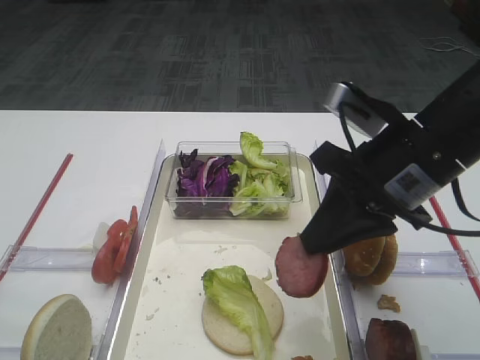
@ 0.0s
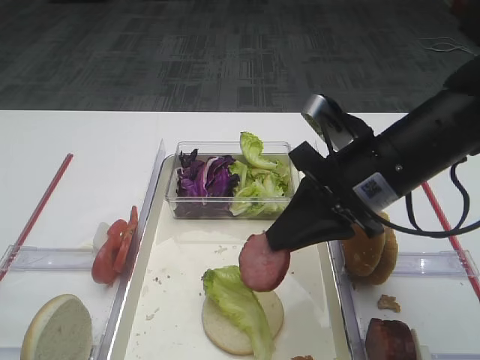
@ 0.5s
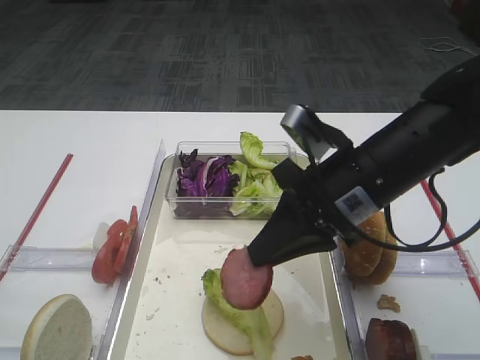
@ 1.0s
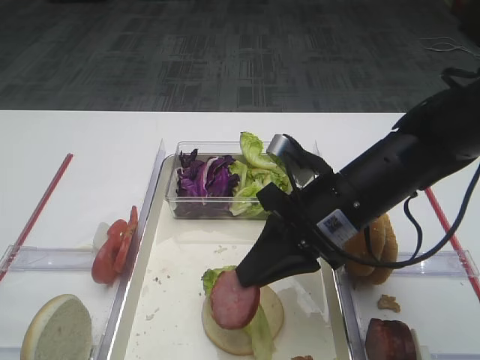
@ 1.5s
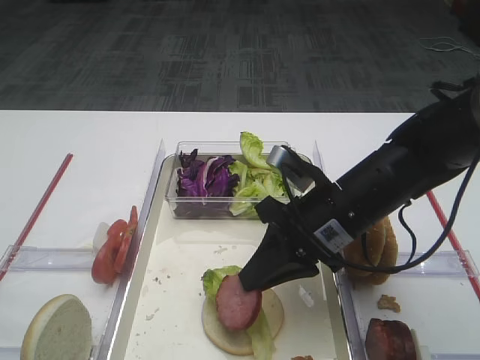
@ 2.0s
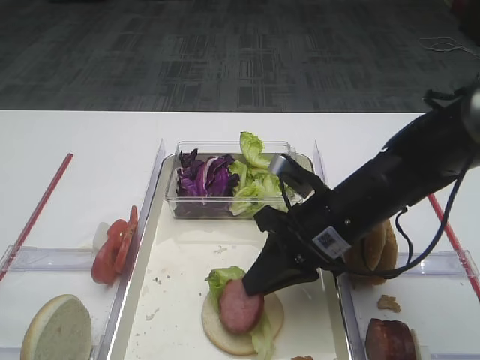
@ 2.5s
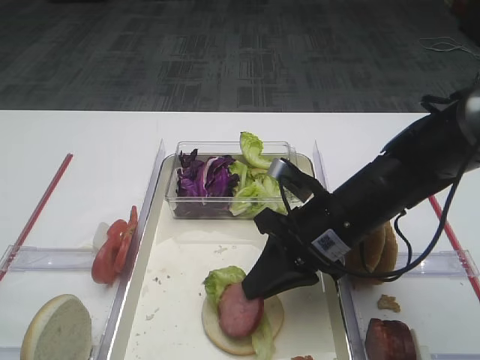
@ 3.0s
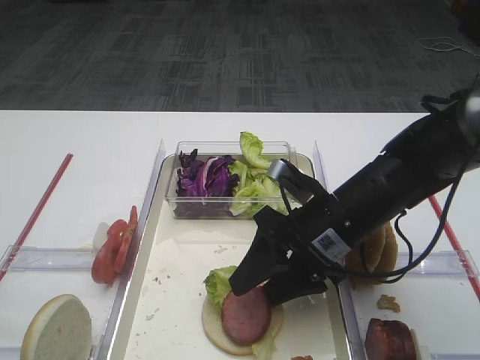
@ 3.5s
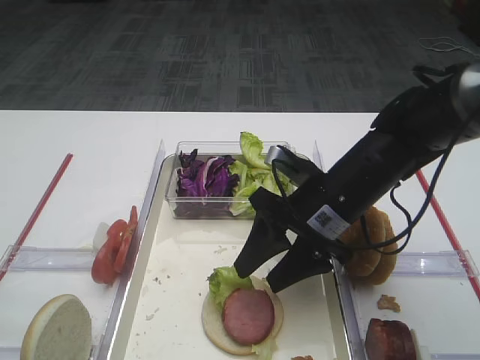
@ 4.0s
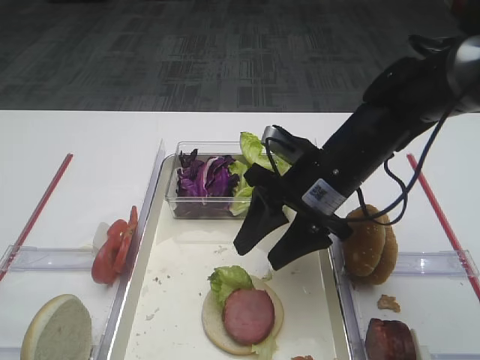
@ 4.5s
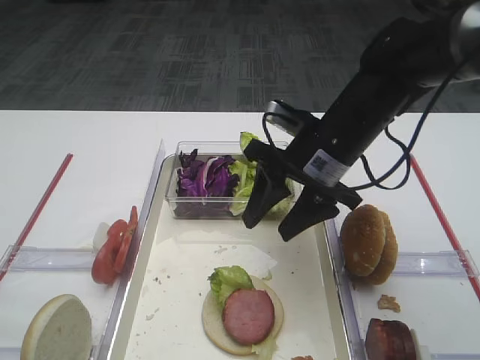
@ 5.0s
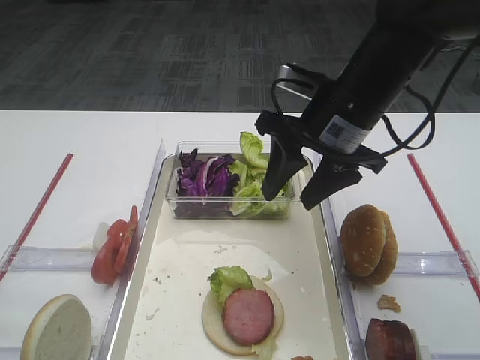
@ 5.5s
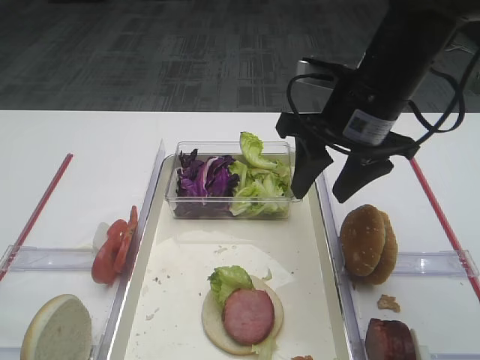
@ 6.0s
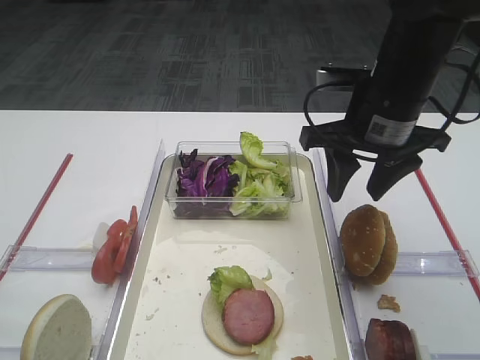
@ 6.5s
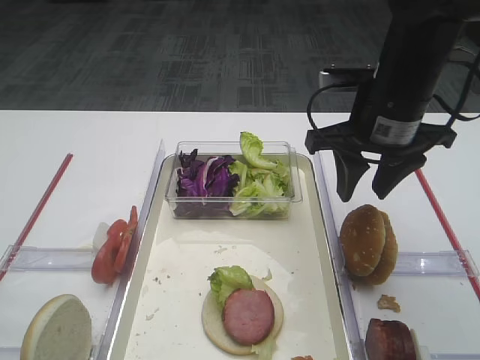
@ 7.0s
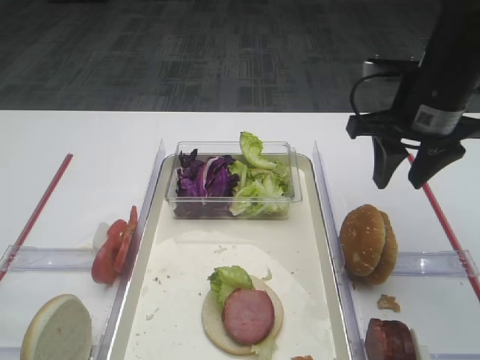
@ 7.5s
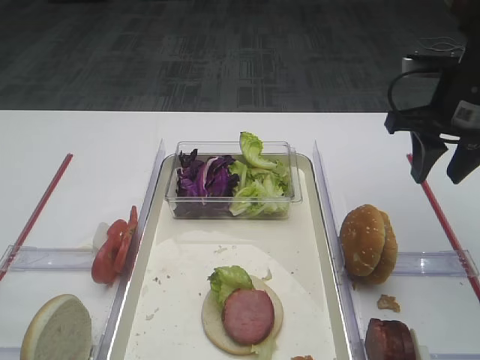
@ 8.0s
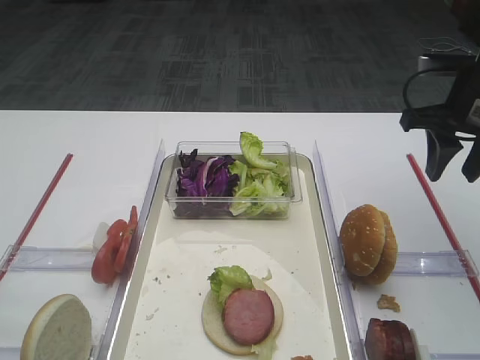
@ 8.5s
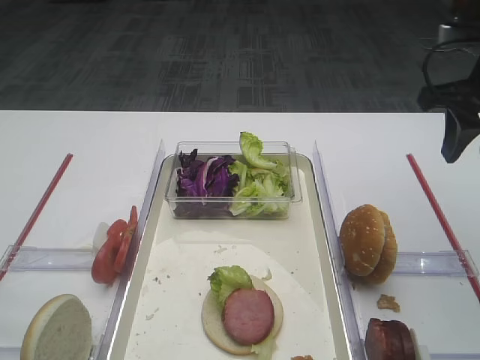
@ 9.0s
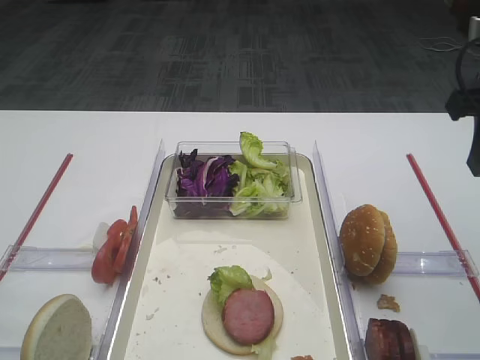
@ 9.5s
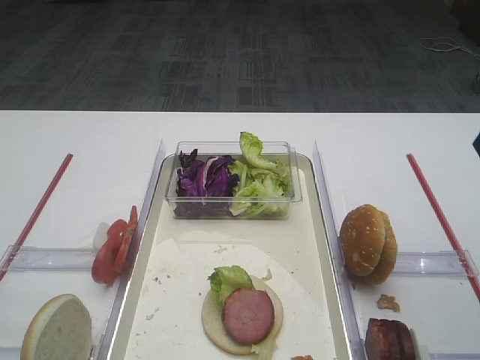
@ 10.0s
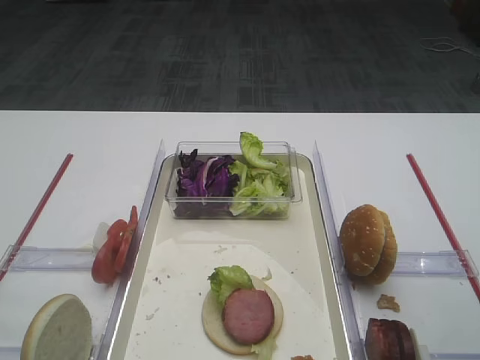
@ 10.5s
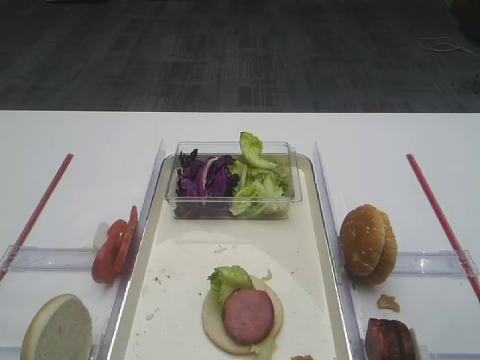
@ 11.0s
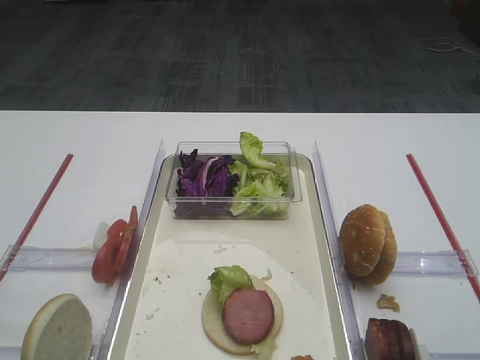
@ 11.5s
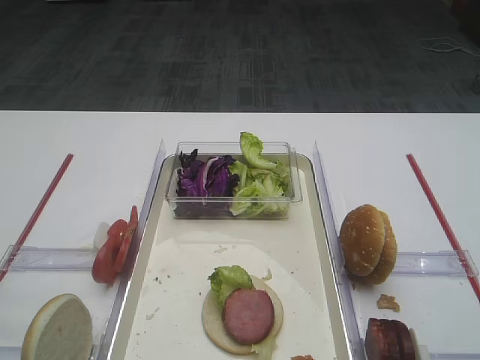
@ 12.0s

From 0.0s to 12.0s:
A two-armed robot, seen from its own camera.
Step, from 0.0s to 4.5s: Place the cutlet on the tomato slice with the right gripper.
From 0.0s to 2.0s: The right gripper heads downward, covering some 10 cm.
From 2.0s to 4.0s: The right gripper opens up.
From 4.0s to 6.0s: The right gripper shifts roughly 10 cm upward.
From 6.0s to 8.0s: The right gripper shifts approximately 10 cm to the right.
From 8.0s to 10.0s: The right gripper travels backward and upward by approximately 15 cm.

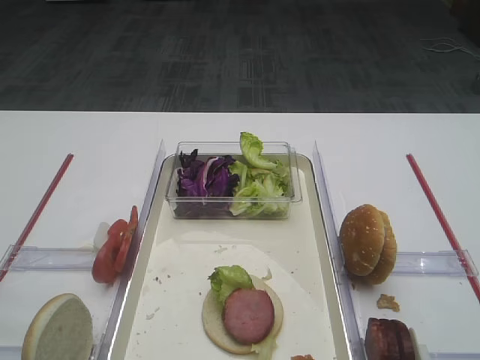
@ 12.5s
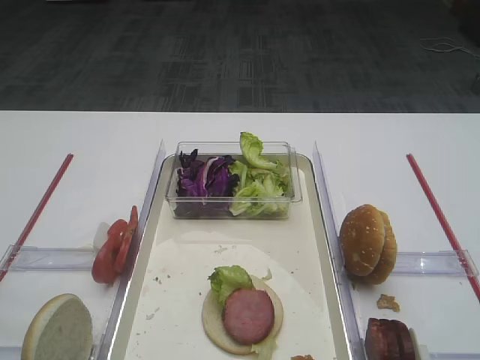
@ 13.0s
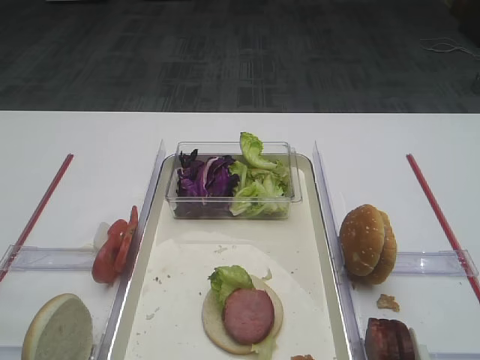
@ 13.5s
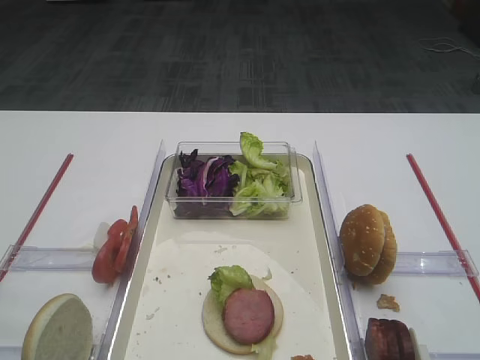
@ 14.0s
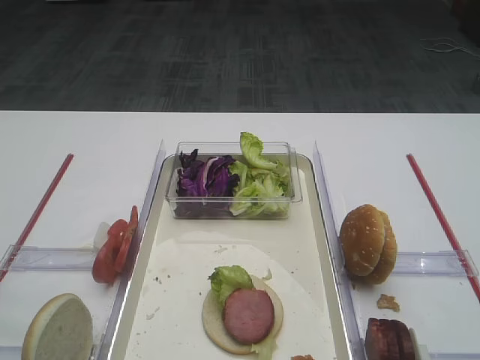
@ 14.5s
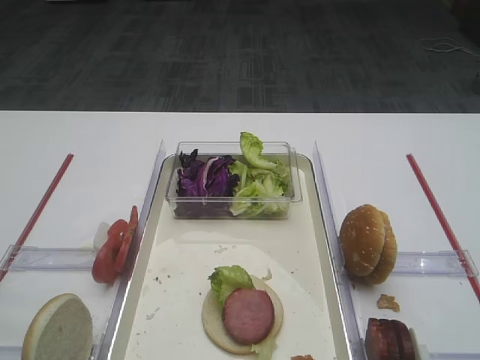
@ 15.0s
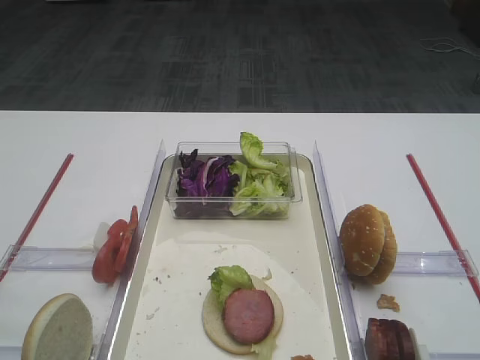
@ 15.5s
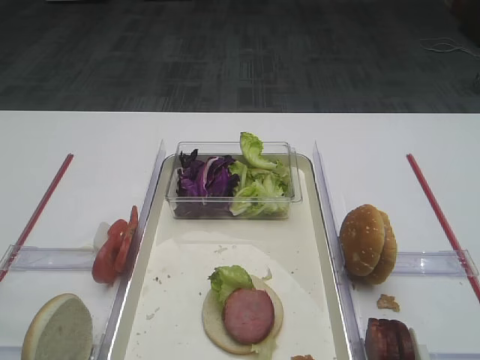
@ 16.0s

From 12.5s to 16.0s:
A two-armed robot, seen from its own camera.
From 14.5s to 16.0s: Neither gripper changes place.

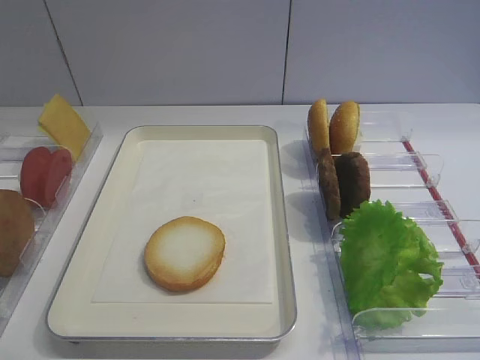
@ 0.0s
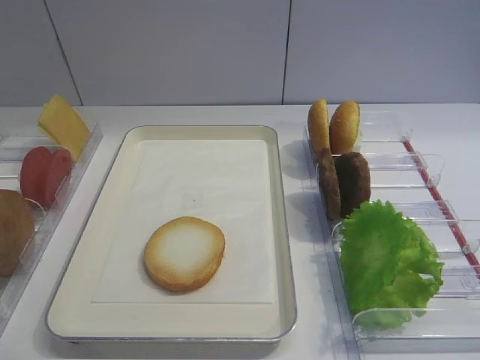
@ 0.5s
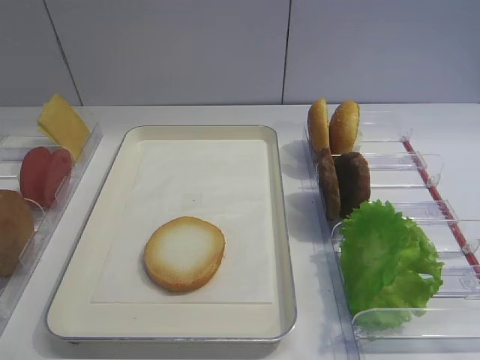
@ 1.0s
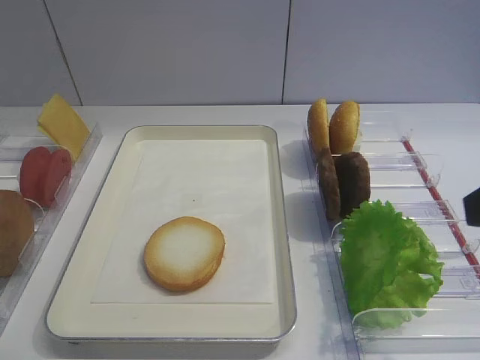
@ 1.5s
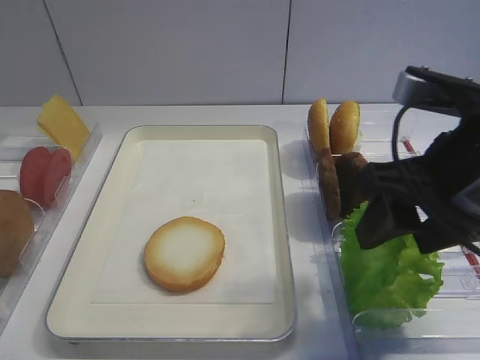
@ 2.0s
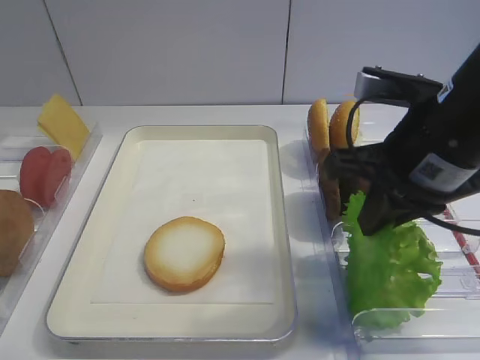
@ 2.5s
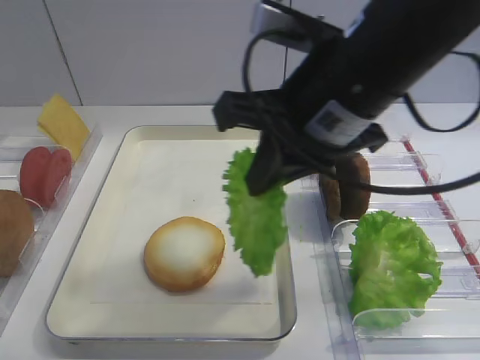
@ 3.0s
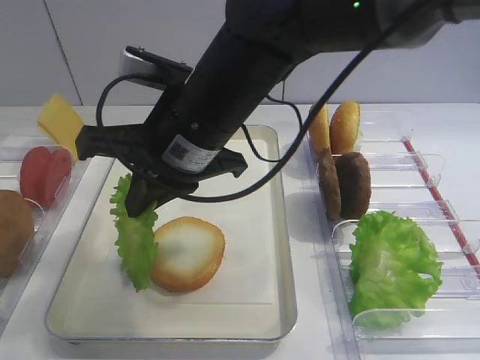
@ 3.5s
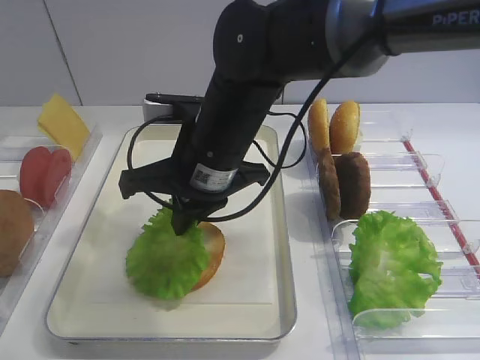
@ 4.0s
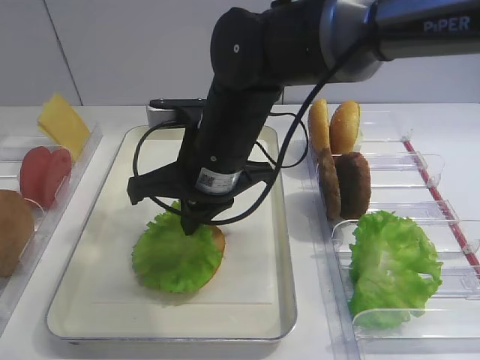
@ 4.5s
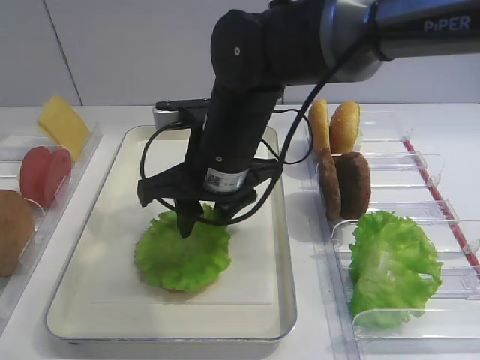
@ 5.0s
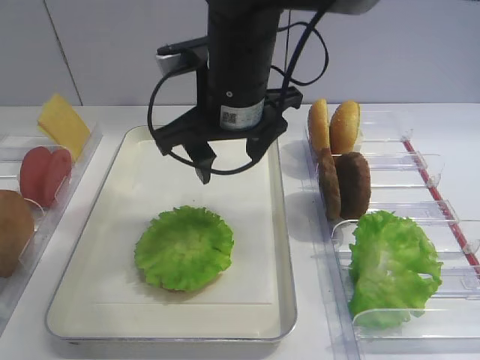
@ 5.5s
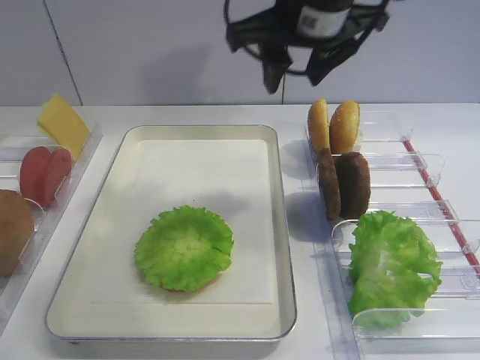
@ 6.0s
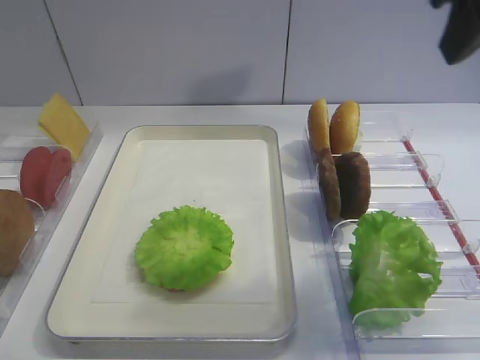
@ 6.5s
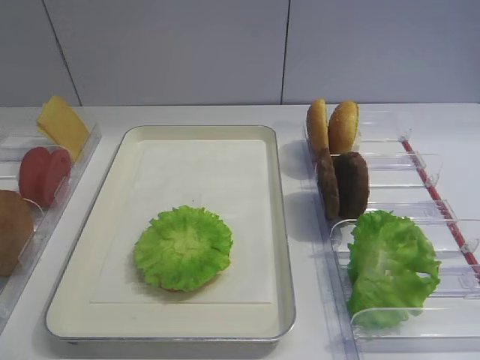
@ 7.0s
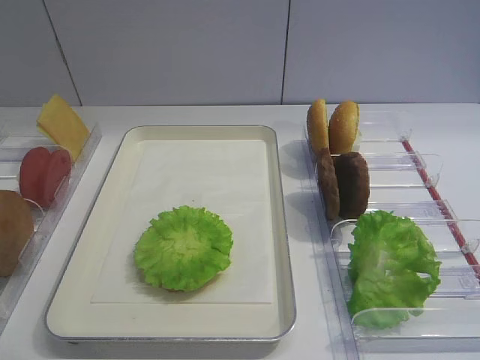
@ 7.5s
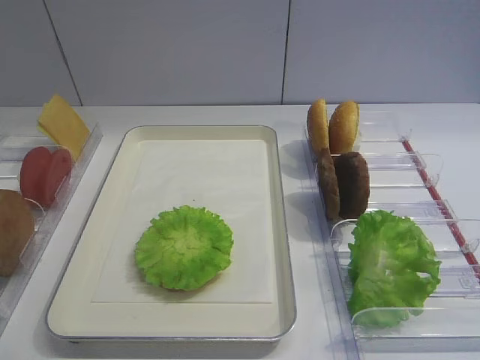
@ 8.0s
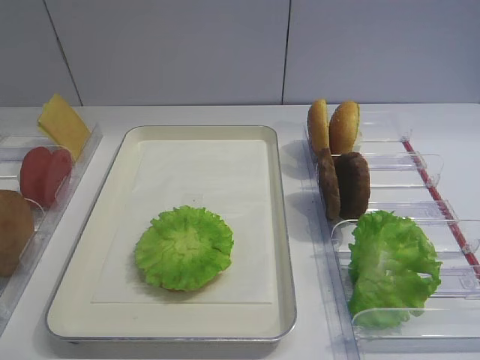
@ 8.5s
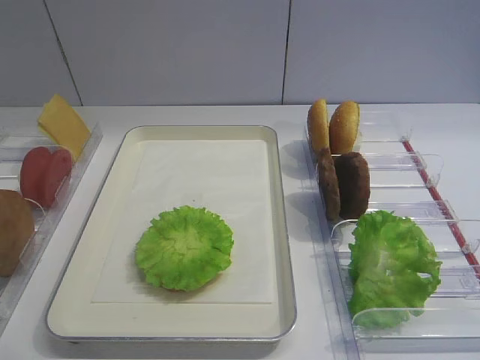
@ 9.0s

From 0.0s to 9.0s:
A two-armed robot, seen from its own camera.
Step, from 0.0s to 2.5s: Pick up the lettuce leaf with the right gripper.
Step, from 3.0s to 5.0s: Place the lettuce leaf on the bread slice with the right gripper.
From 2.0s to 4.5s: The right gripper travels to the left and forward by some 20 cm, and closes.
From 4.5s to 7.0s: The right gripper heads to the right, backward and upward, covering some 40 cm, and opens.

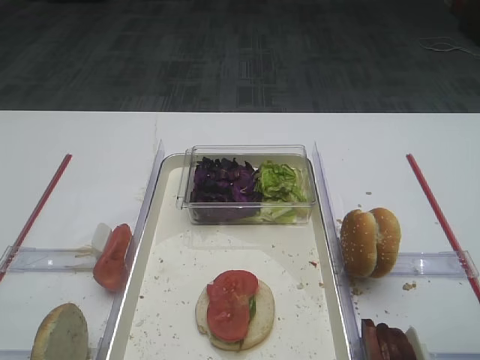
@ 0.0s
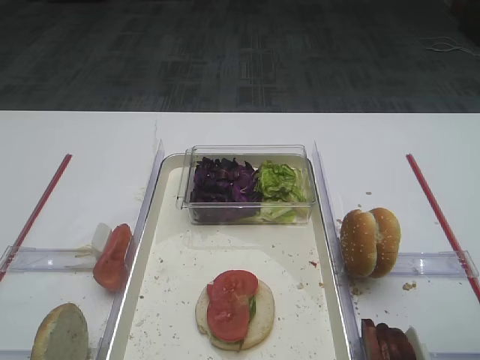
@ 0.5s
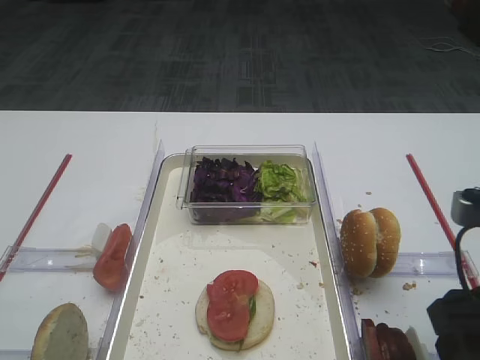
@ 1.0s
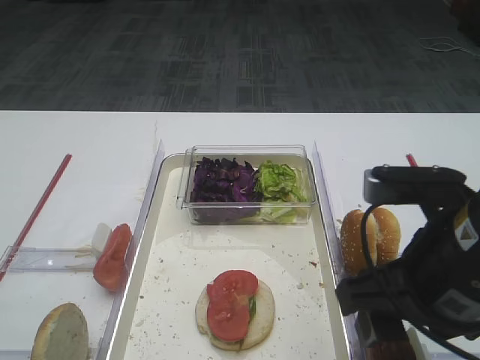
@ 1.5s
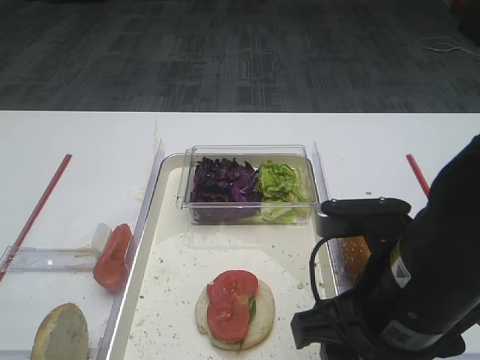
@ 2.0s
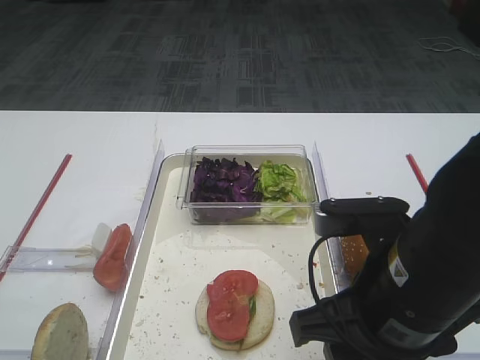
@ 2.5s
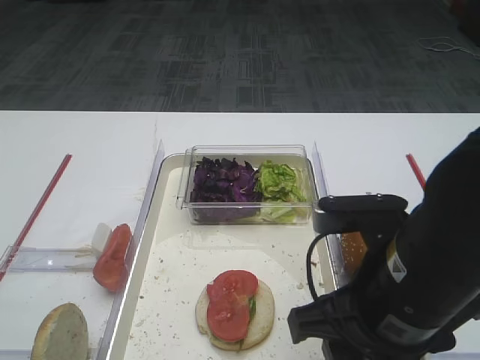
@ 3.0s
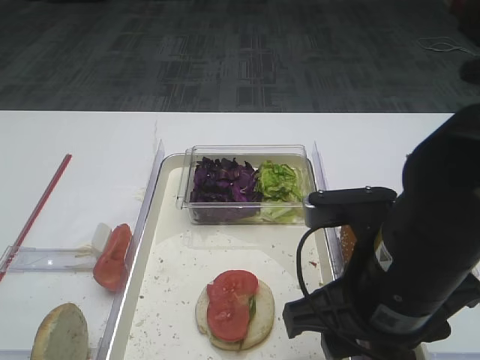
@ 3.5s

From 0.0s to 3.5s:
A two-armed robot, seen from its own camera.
From 0.0s to 2.0s: The right gripper is displaced to the left by some 15 cm.
From 2.0s to 3.5s: The grippers stay close to where they were, moving slightly.
